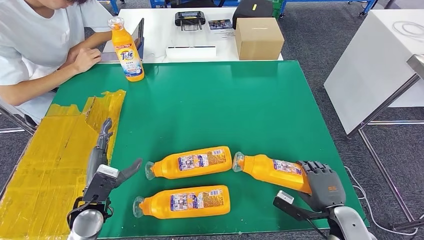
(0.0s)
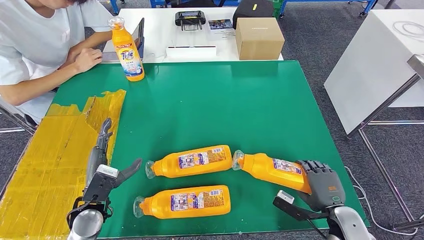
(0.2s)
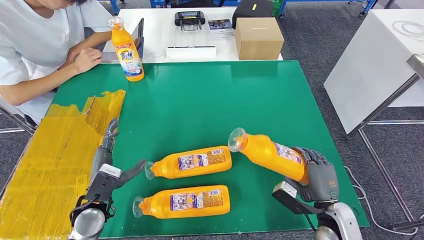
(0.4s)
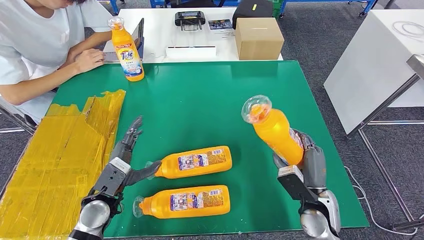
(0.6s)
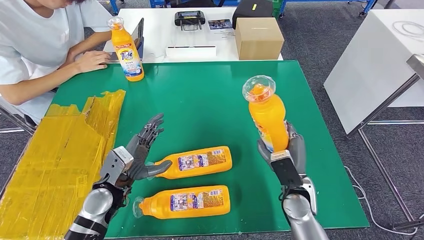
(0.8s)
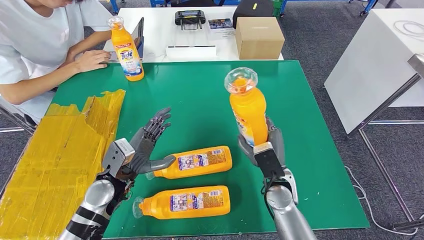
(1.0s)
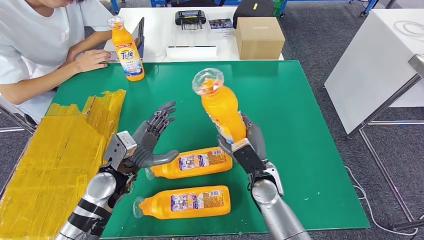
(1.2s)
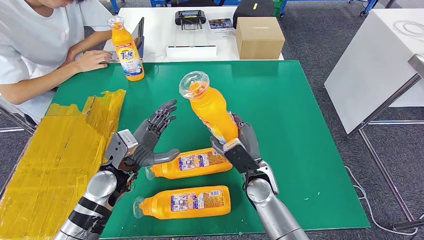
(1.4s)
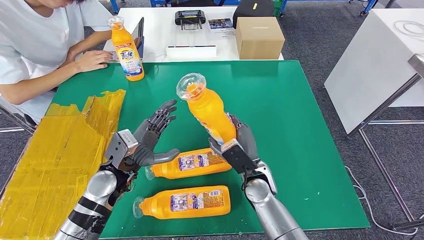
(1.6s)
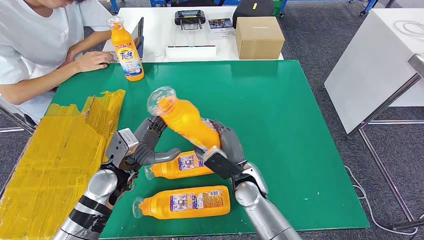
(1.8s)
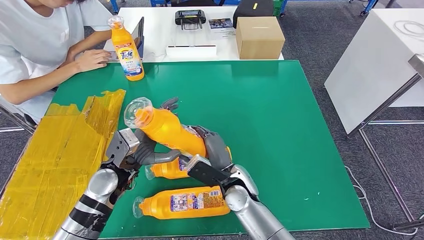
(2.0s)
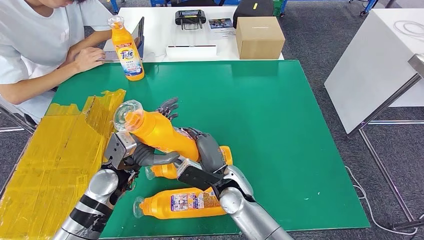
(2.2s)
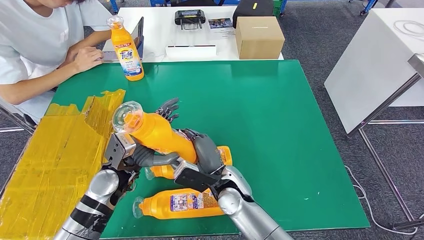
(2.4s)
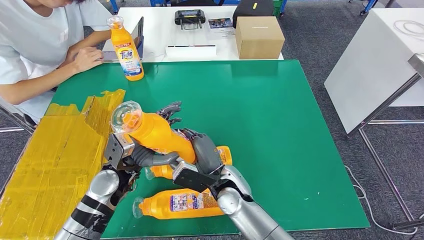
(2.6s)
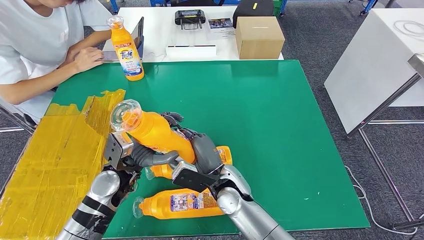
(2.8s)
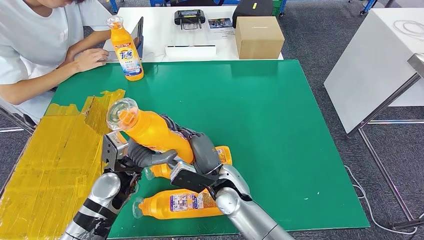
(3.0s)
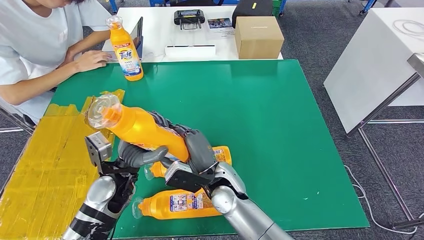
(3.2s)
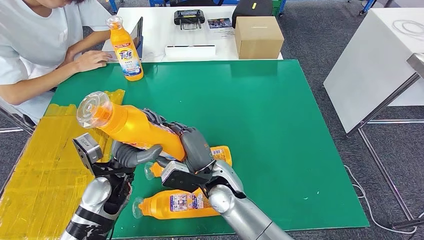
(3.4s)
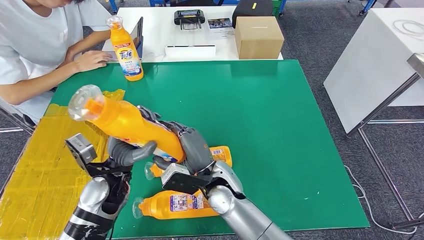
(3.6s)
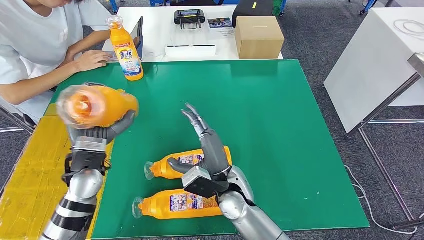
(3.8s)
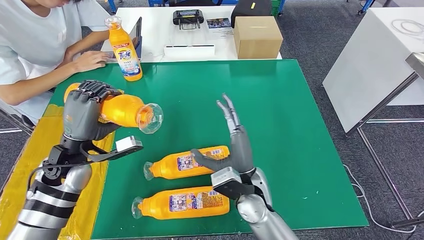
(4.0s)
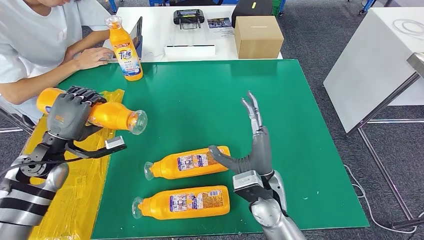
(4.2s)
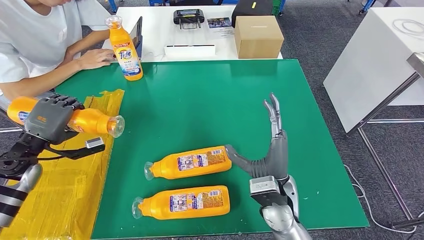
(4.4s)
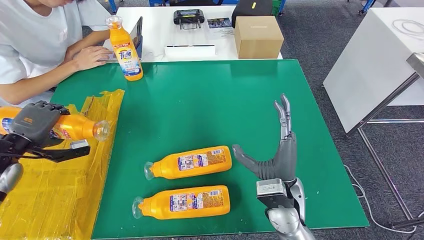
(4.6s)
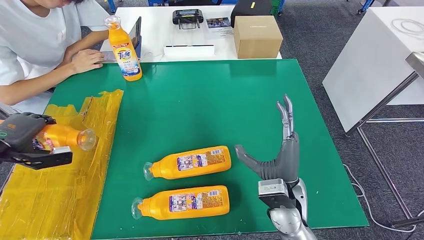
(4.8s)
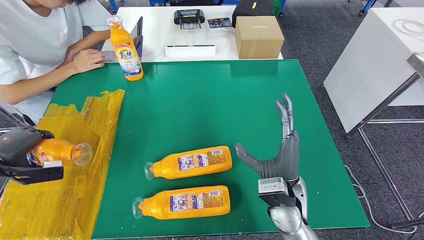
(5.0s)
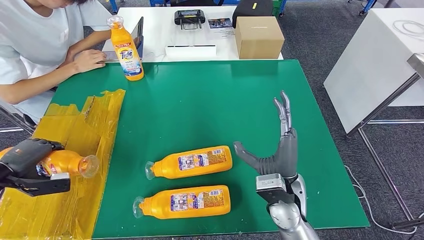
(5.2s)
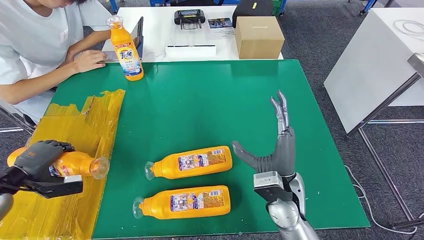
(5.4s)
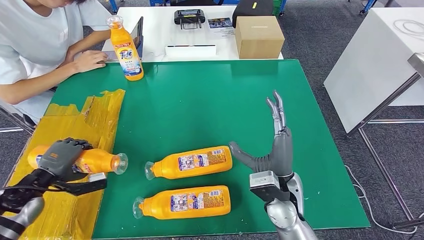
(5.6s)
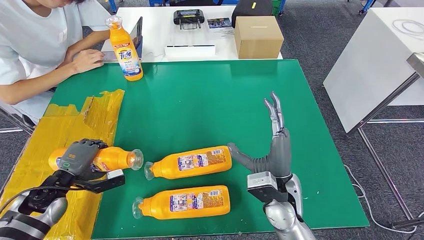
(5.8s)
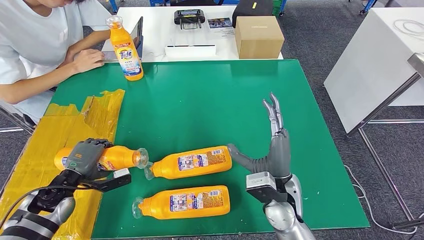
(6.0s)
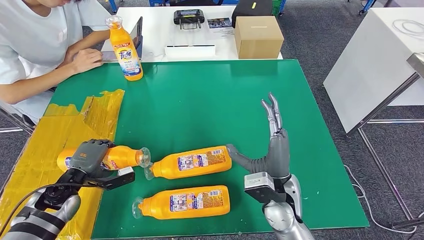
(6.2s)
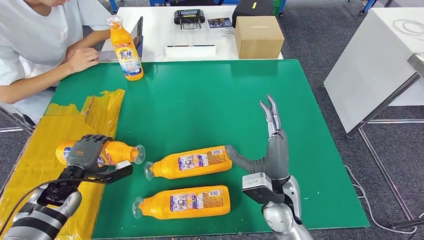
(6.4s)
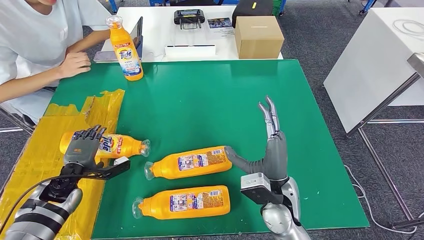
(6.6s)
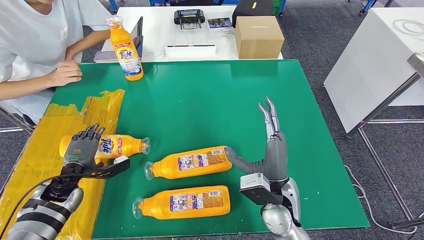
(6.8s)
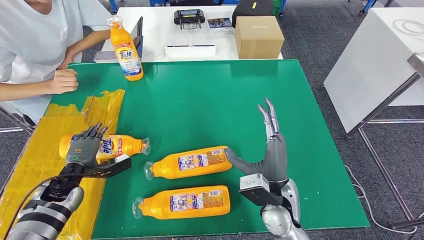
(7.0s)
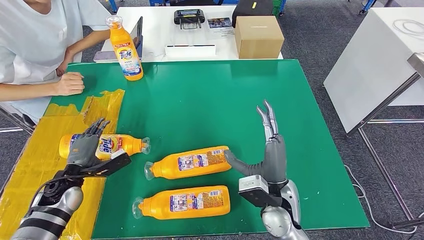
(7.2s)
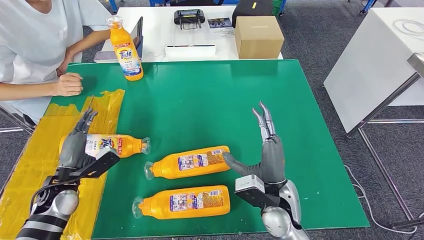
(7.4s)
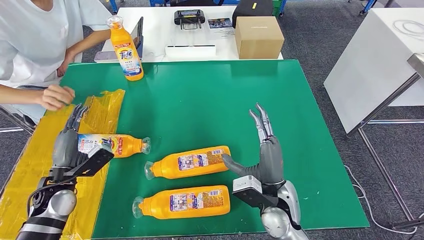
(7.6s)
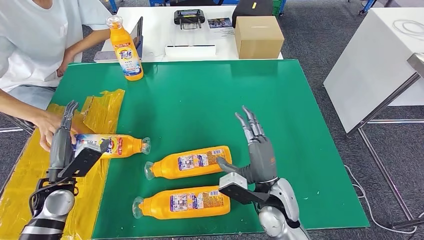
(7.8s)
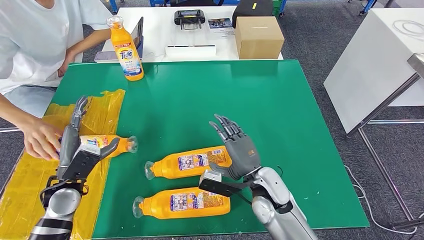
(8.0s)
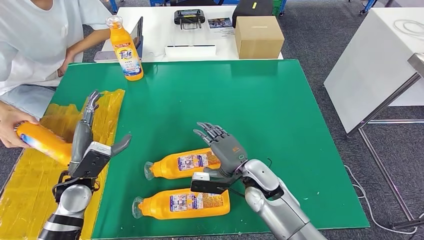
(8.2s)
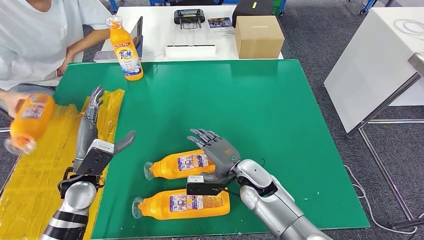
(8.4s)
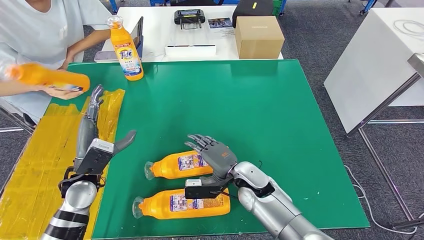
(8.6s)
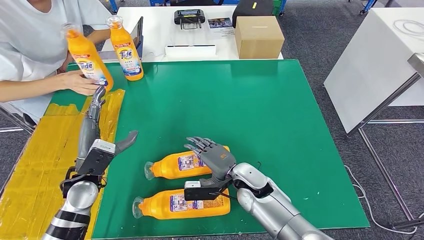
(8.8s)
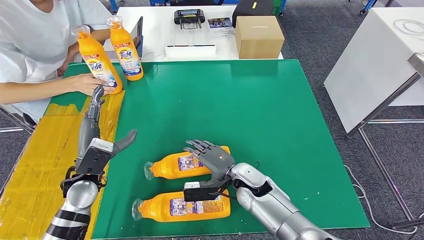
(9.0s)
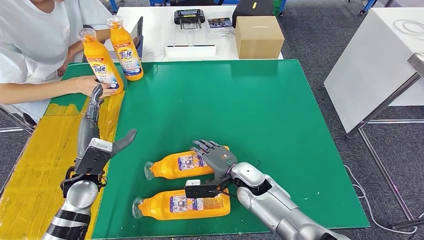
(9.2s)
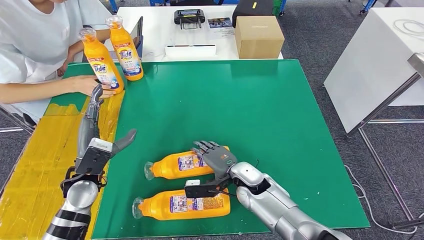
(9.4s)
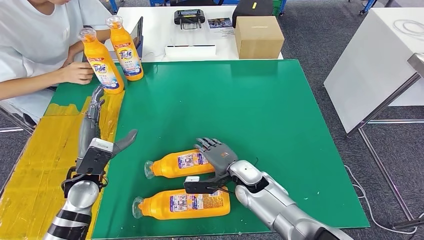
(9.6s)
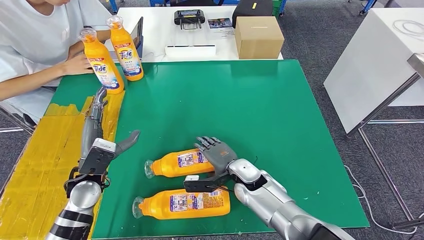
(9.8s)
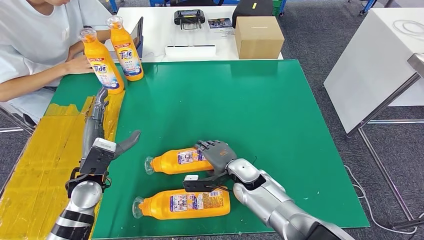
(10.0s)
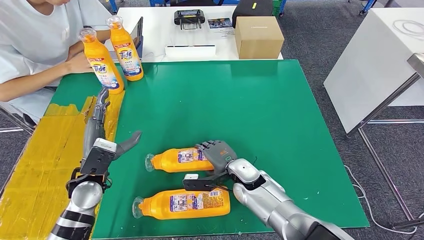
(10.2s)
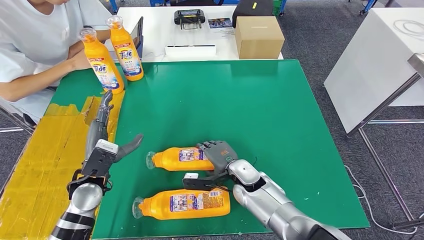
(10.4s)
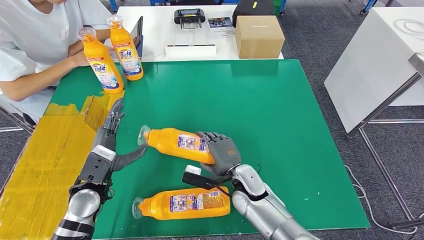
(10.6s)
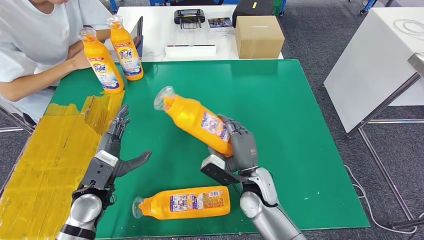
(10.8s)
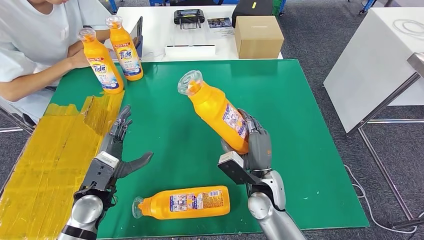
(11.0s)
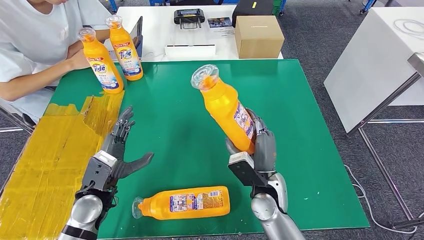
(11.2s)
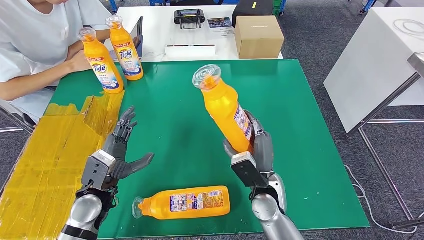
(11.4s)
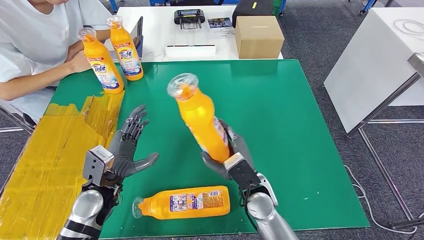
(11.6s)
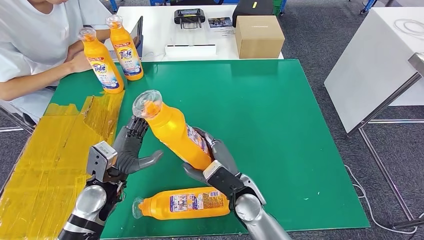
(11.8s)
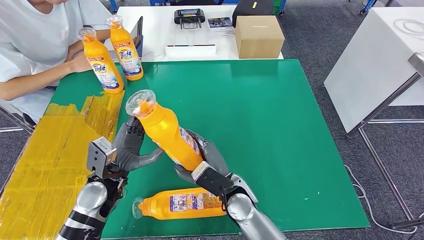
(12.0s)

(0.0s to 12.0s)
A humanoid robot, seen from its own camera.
Step, 1.6s - 7.2s: Flip the fast-moving consumer goods bottle to the front side.
Step, 7.4s - 11.4s: Pick up the fast-moving consumer goods bottle from the table.
0.0s - 1.6s: The left hand moves forward, to the right and upward, approximately 10 cm. The right hand shifts about 25 cm to the left and forward.
1.6s - 3.0s: The right hand moves to the left, about 10 cm.
4.4s - 6.0s: The left hand heads downward, covering about 10 cm, and goes to the left and returns, about 10 cm each way.
9.0s - 10.4s: The hands make only small movements.
10.4s - 12.0s: The right hand shifts roughly 5 cm backward.

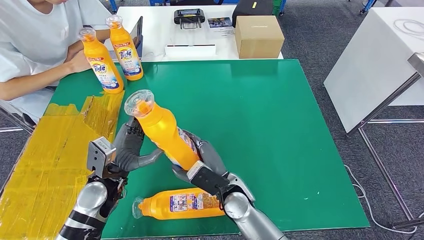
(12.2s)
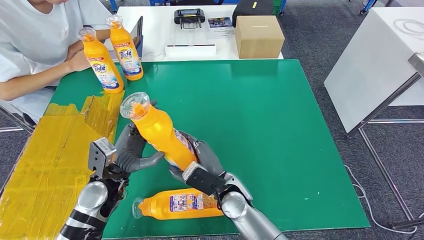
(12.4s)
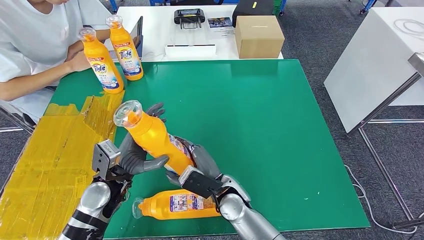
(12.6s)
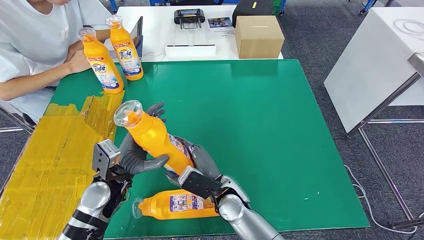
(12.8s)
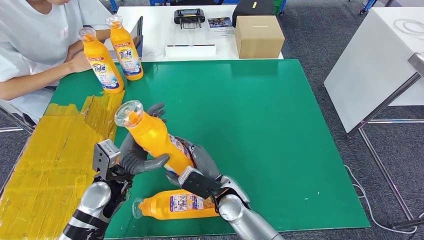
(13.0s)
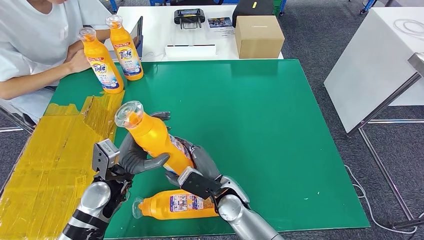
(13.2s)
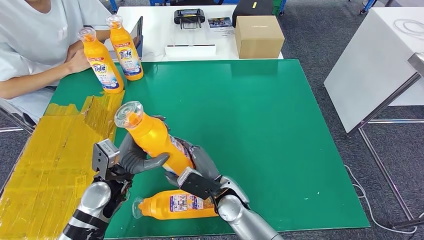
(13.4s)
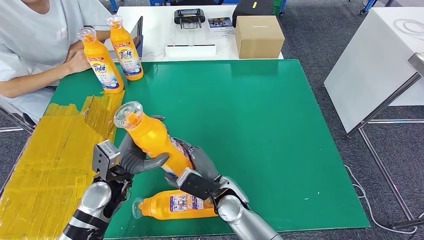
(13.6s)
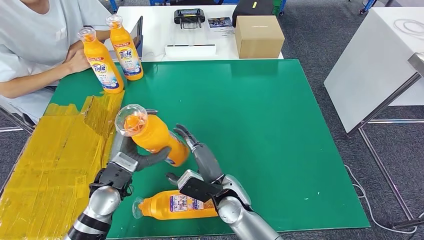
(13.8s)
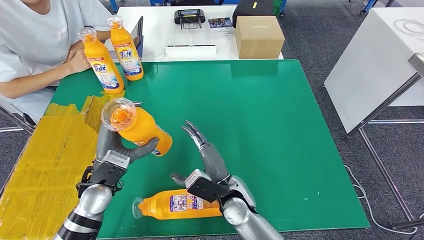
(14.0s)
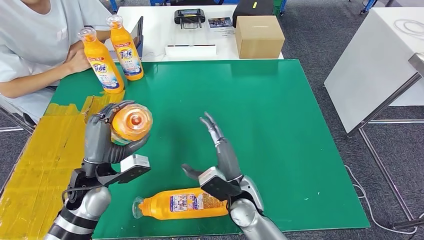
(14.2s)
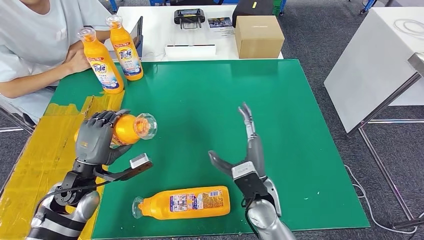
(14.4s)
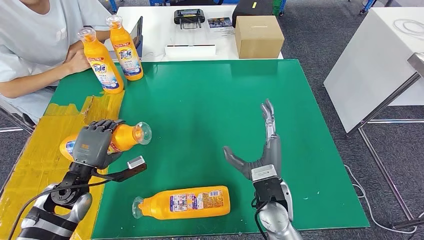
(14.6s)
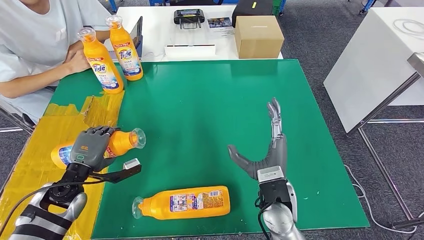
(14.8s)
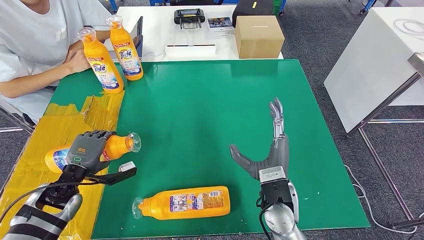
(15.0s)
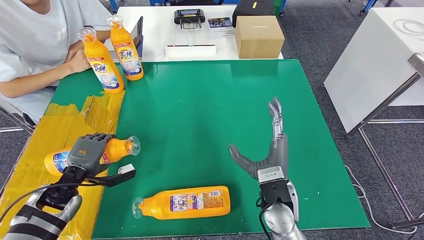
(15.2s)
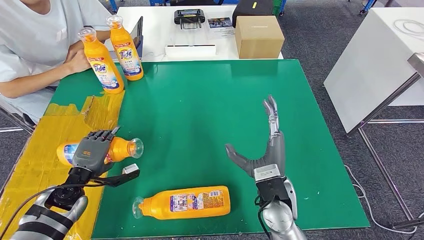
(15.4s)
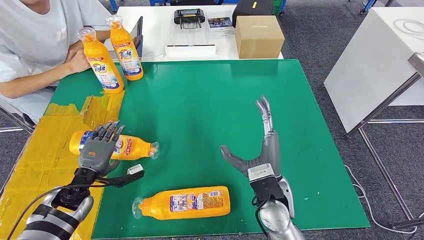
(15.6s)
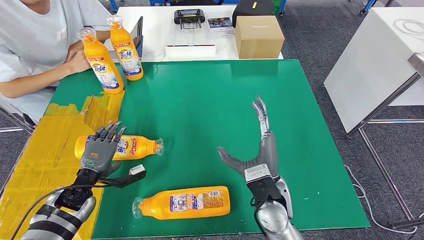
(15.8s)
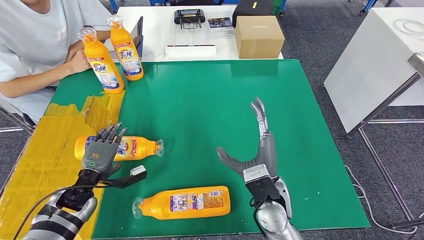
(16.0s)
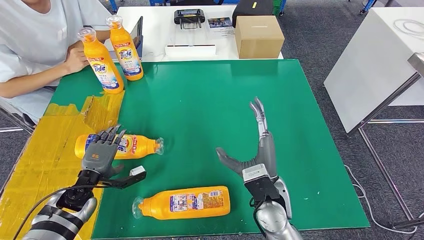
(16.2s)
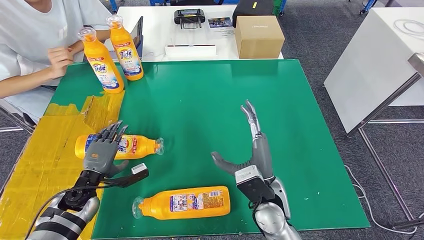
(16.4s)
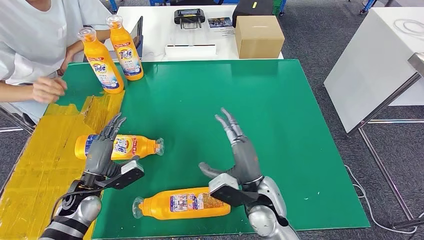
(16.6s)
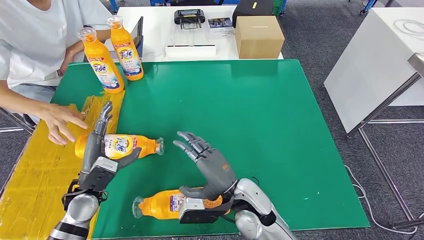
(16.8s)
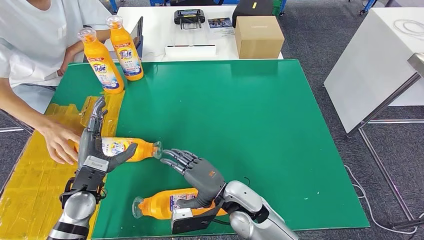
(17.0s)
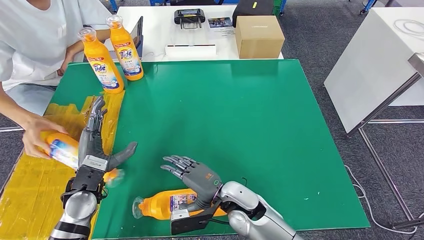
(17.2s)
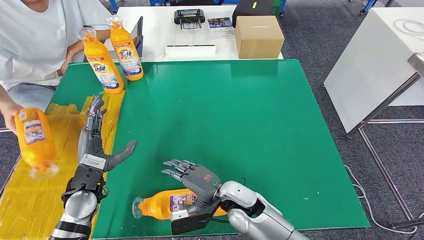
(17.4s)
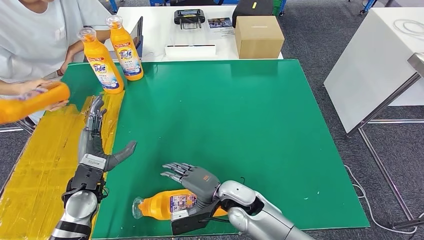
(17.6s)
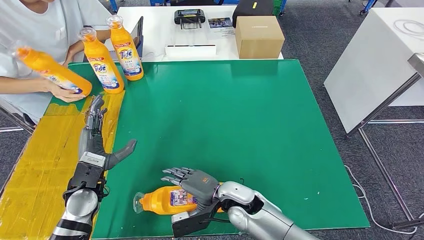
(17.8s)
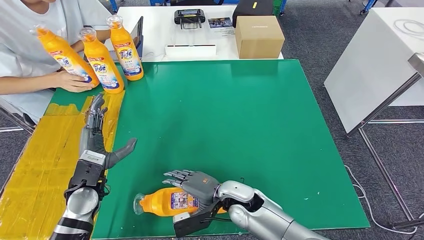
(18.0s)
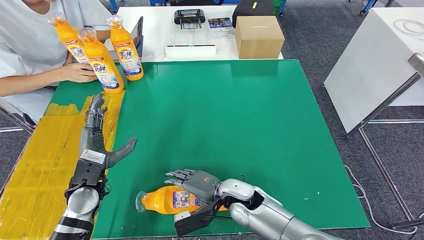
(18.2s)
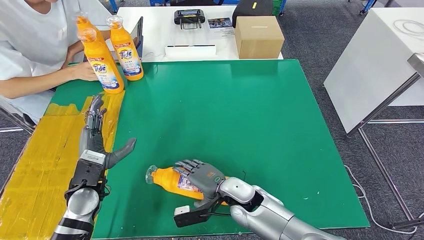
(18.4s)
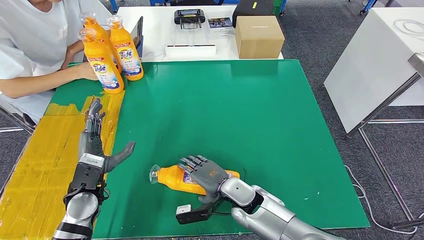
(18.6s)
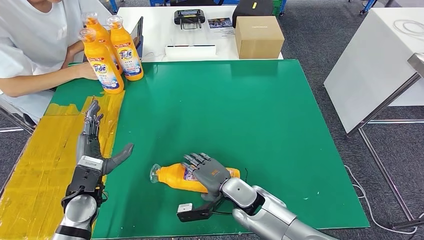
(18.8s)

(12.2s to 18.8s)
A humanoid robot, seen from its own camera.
Step, 12.2s - 18.0s: Flip the fast-moving consumer goods bottle to the front side.
13.8s - 15.4s: The left hand heads to the left and downward, covering approximately 15 cm. Meanwhile the right hand shifts about 10 cm to the right and upward.
